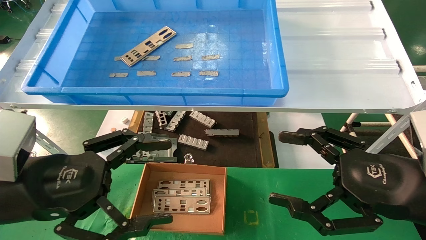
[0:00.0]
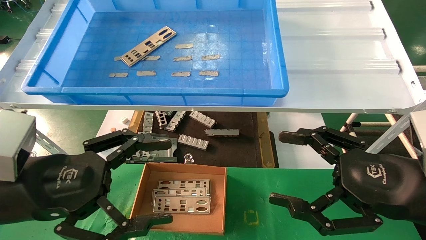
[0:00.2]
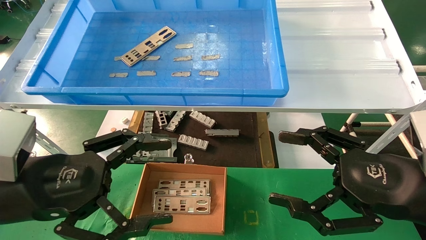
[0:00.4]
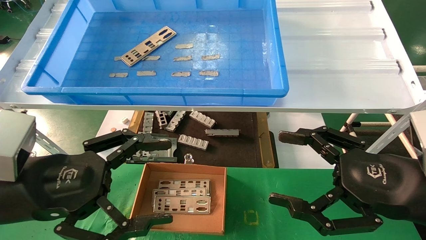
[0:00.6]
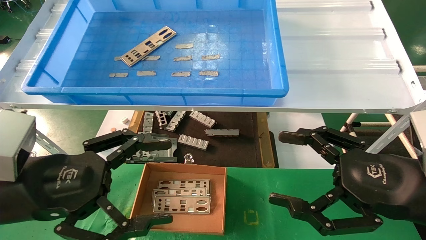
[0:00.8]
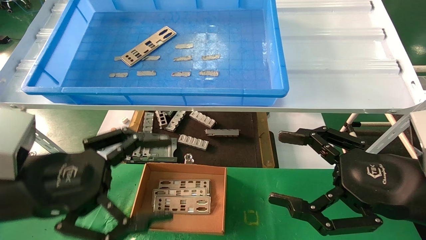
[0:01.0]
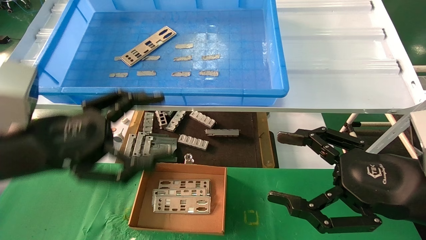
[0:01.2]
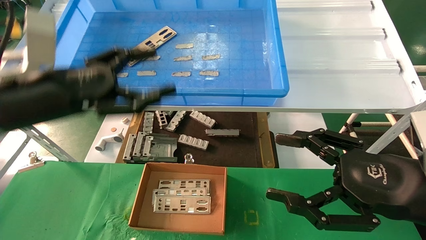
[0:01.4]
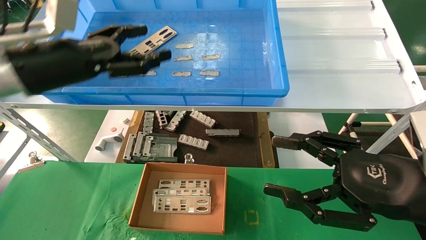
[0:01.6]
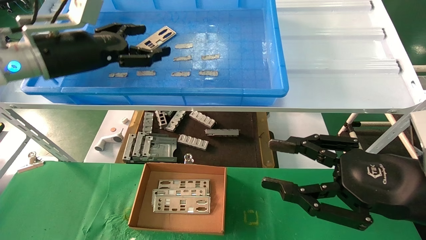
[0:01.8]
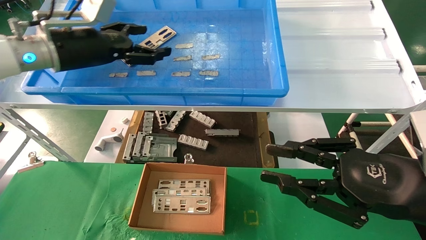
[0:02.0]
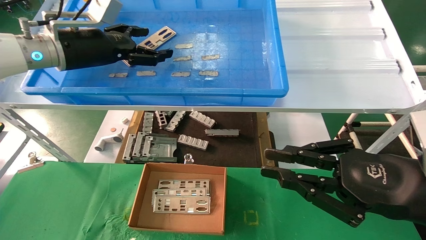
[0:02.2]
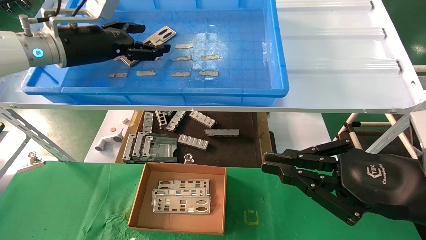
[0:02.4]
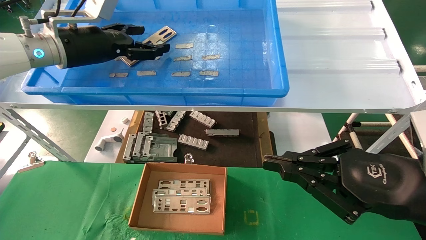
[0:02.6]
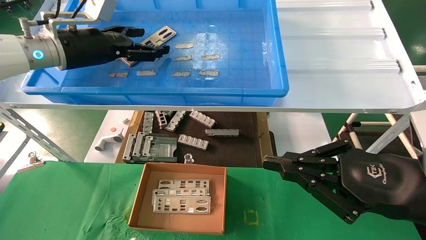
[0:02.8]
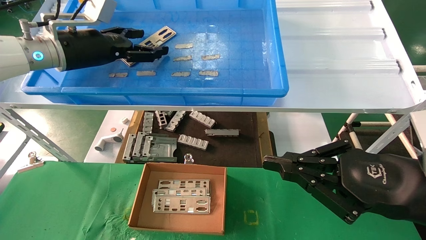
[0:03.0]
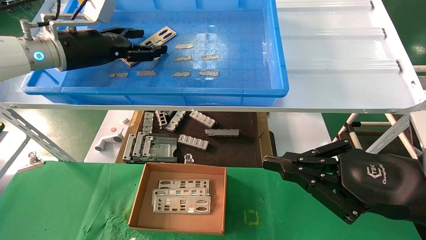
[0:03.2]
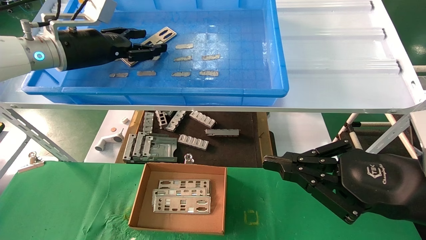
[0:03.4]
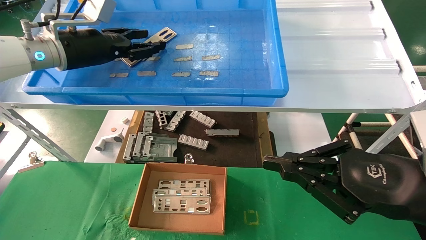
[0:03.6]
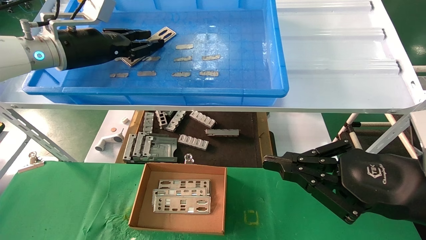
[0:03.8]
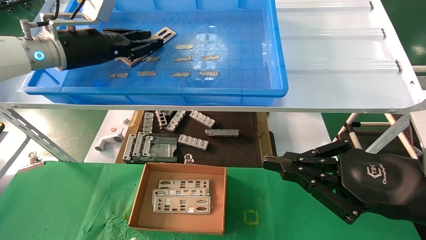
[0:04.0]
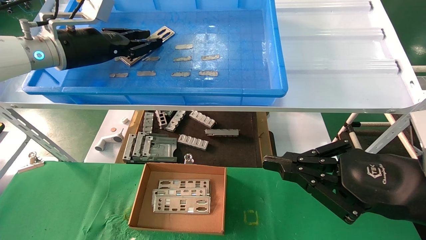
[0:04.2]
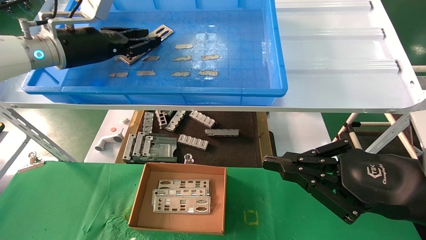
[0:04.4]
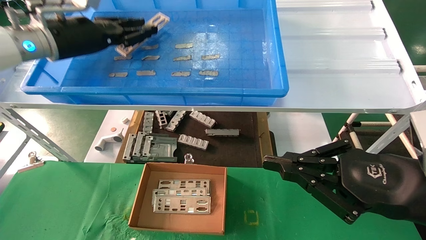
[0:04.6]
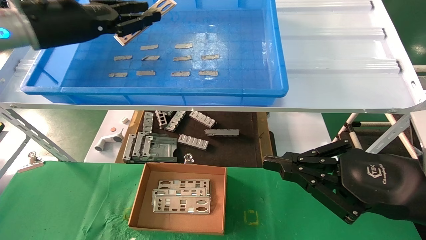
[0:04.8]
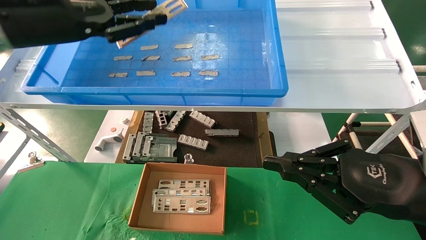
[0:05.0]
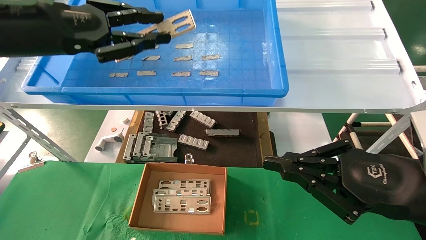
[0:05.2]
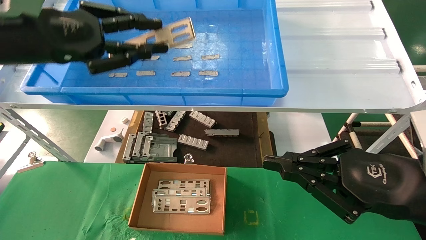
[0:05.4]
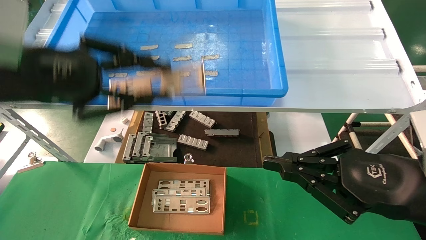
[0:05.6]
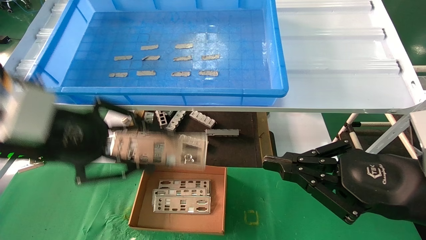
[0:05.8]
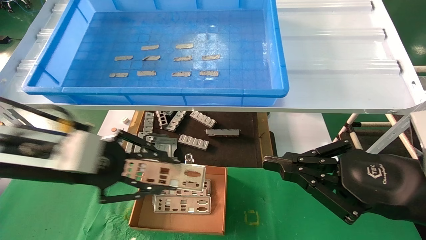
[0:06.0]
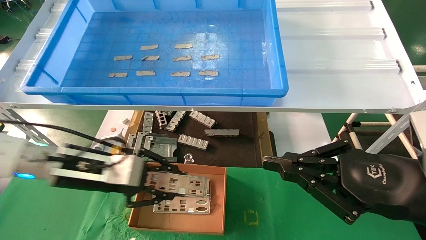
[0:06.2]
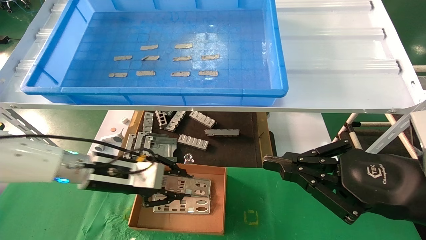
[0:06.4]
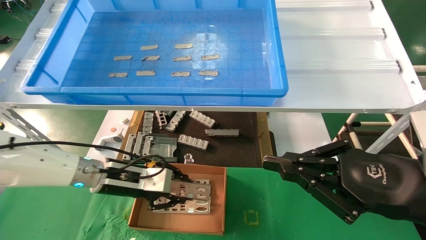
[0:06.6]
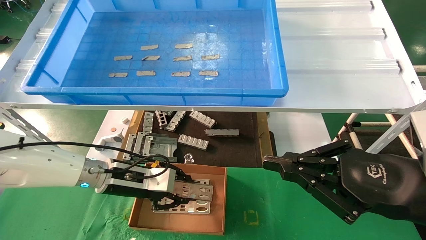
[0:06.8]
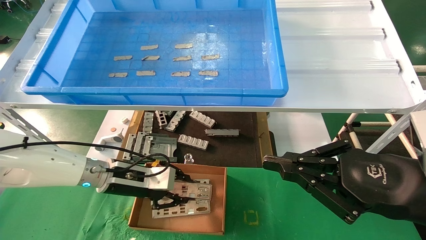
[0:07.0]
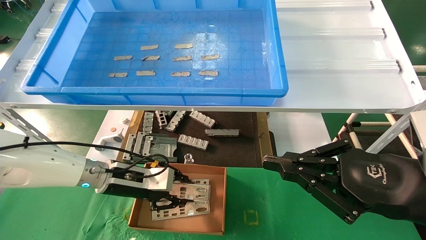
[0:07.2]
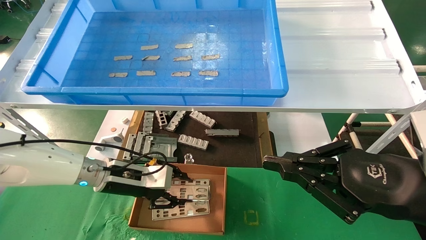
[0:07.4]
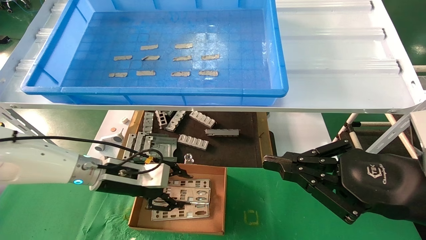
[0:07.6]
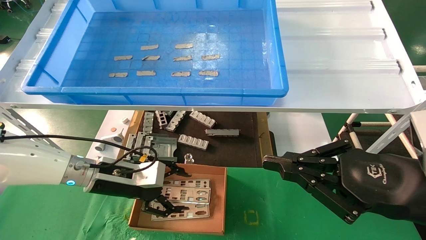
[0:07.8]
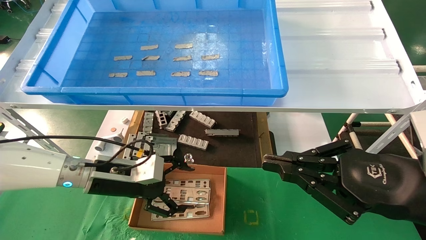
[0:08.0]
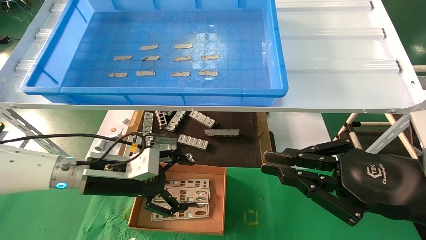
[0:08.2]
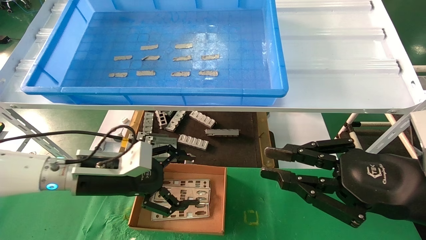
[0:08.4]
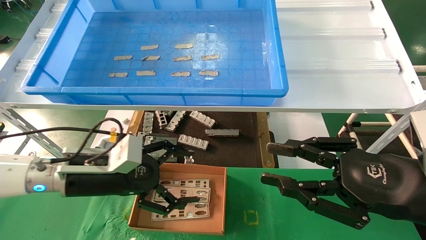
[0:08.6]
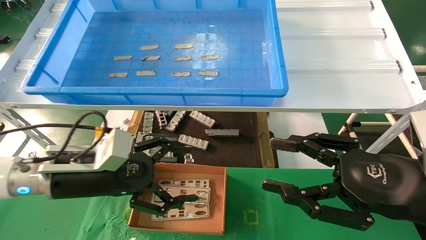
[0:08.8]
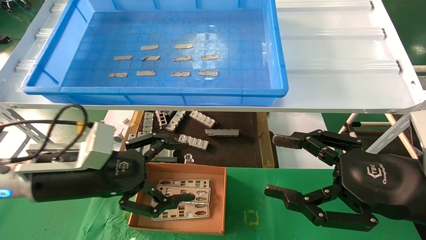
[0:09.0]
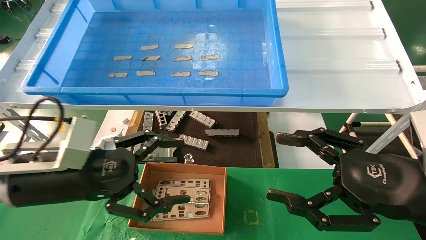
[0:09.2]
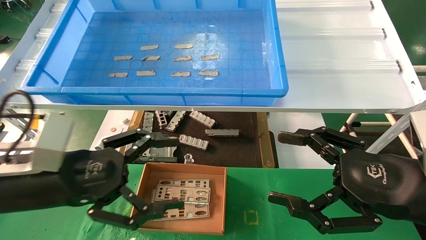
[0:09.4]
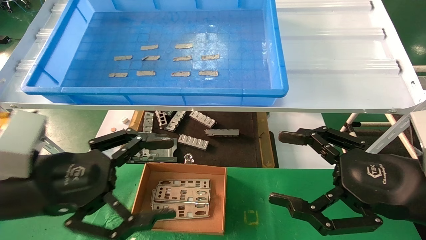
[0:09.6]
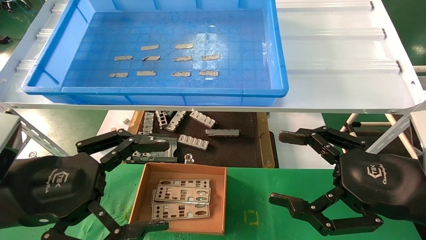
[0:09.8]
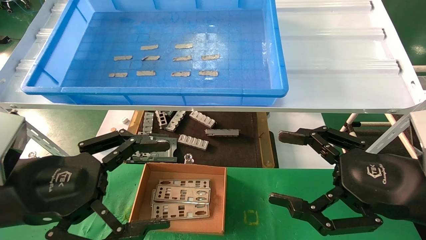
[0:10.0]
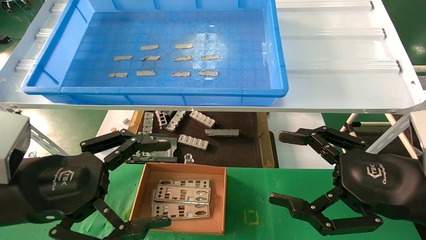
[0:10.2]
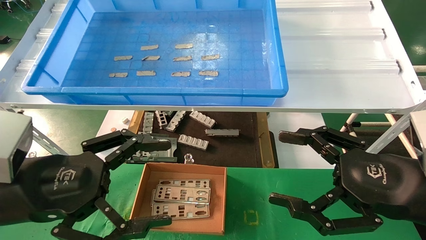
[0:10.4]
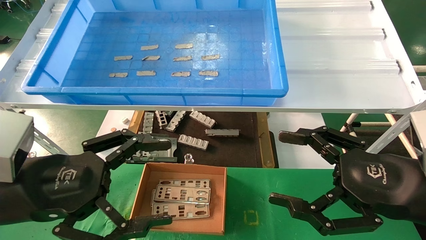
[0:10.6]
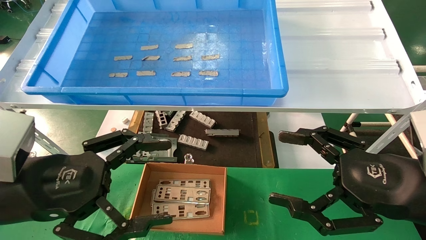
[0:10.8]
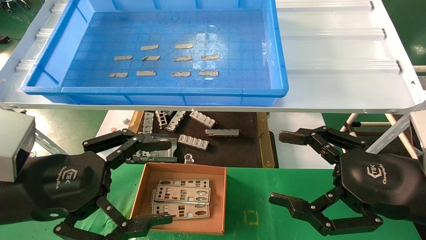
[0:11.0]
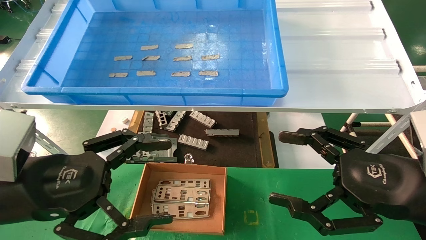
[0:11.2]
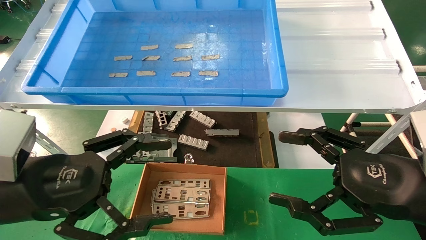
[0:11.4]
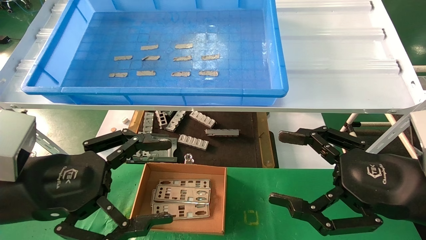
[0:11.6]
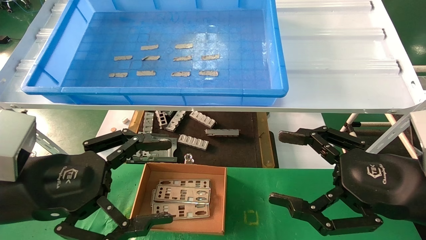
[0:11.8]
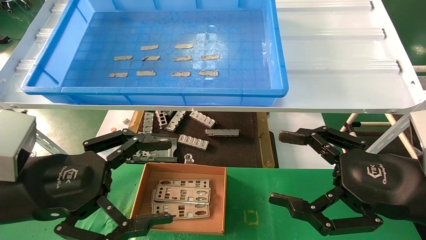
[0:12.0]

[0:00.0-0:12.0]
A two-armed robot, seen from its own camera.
Task of the whole recording: pick up the parts on the tray and put them in the cardboard box.
Step, 0:01.4 to 0:04.0: Pick up the IO bracket from the container box.
Step, 0:04.2 to 0:07.4: Place the IO bracket into the ingredient slot.
0:00.0 to 0:01.6: The left gripper travels forward and upward by roughly 20 cm.
0:01.6 to 0:03.0: The left gripper is displaced forward by roughly 10 cm. Meanwhile the right gripper closes.
0:03.0 to 0:04.4: The left gripper closes up.
0:04.4 to 0:06.0: The left gripper goes some 20 cm backward and downward.
0:06.0 to 0:07.6: The left gripper travels downward and forward by approximately 15 cm.
0:07.6 to 0:09.0: The left gripper shifts some 15 cm backward and upward, and opens up. Meanwhile the right gripper opens its fingers.
0:09.0 to 0:10.4: The right gripper opens up, while the left gripper is displaced backward by about 10 cm.
0:10.4 to 0:12.0: Both grippers stay about where they are.

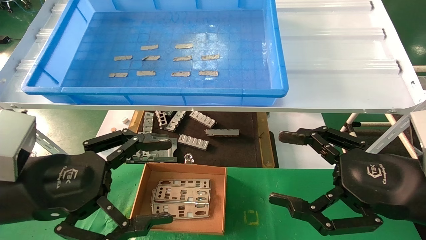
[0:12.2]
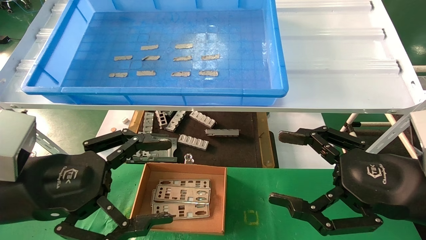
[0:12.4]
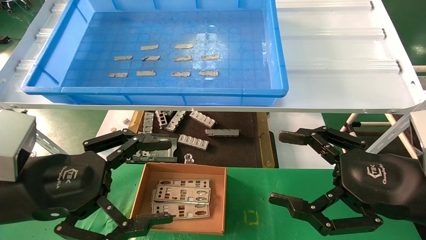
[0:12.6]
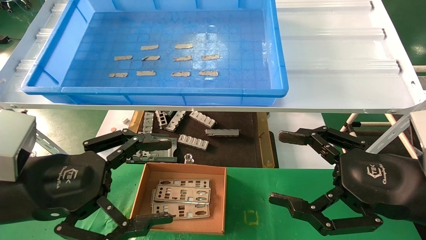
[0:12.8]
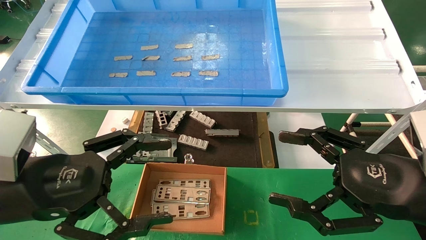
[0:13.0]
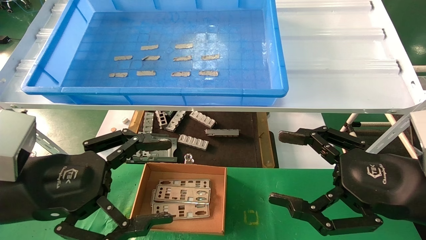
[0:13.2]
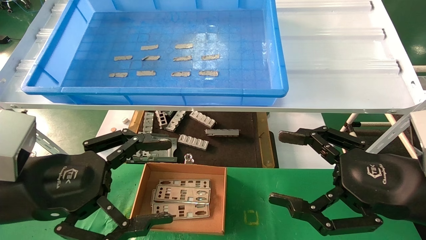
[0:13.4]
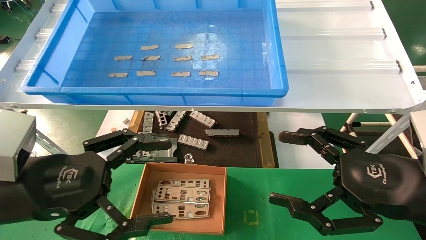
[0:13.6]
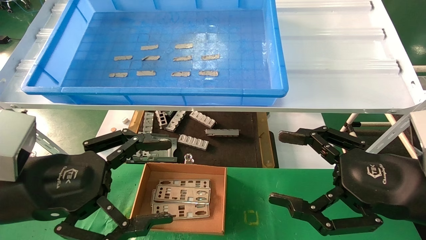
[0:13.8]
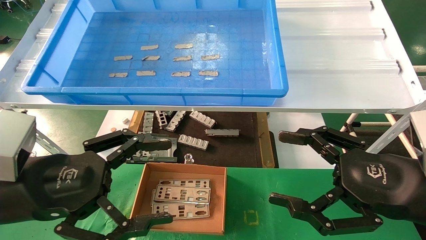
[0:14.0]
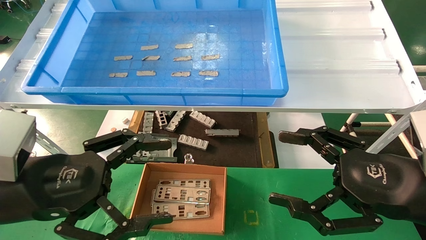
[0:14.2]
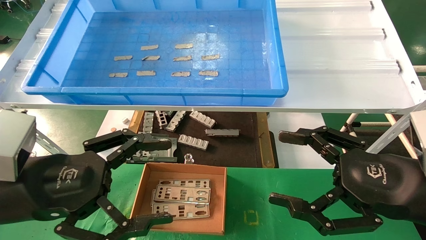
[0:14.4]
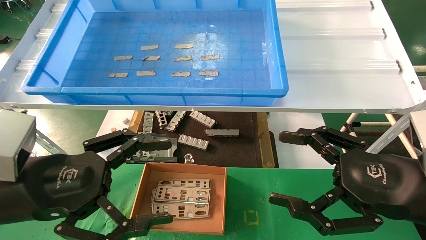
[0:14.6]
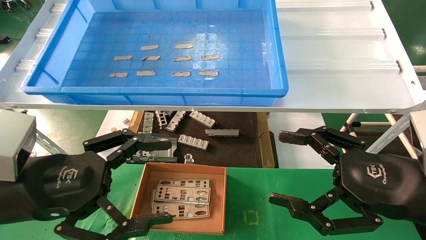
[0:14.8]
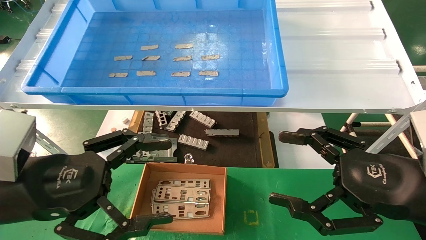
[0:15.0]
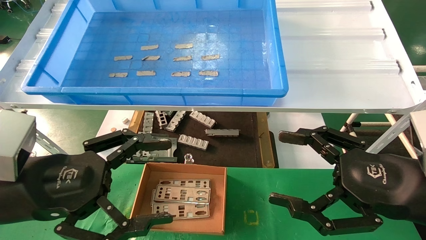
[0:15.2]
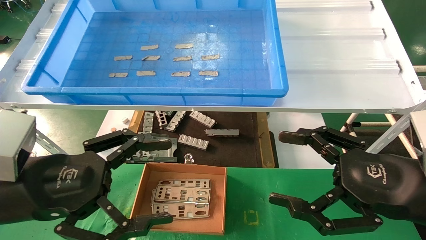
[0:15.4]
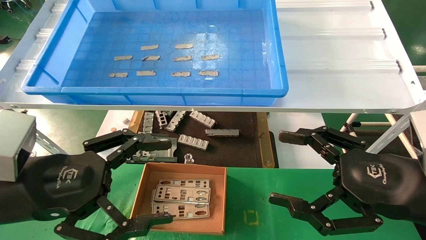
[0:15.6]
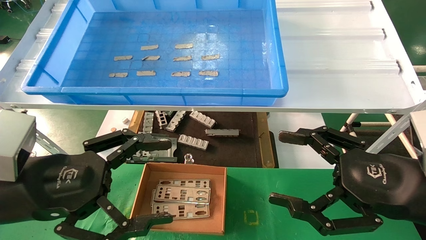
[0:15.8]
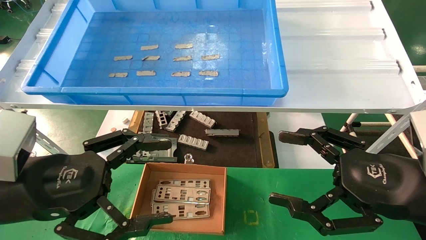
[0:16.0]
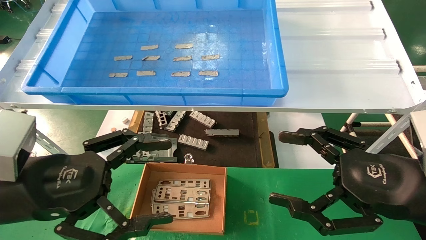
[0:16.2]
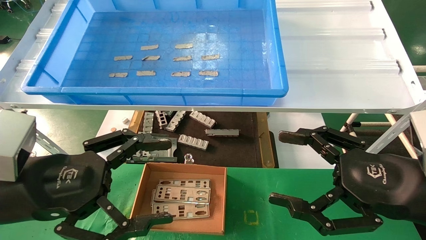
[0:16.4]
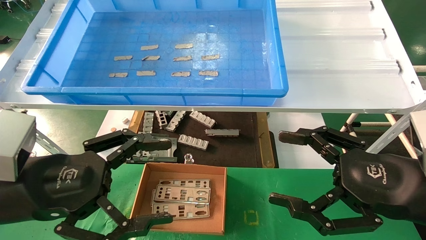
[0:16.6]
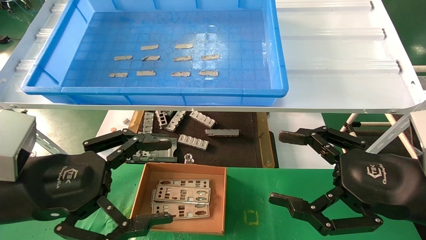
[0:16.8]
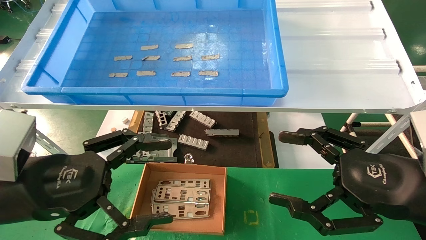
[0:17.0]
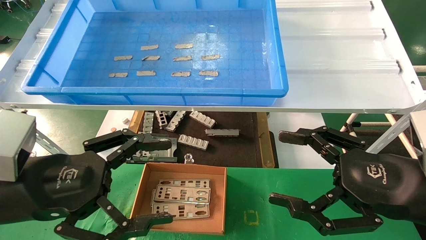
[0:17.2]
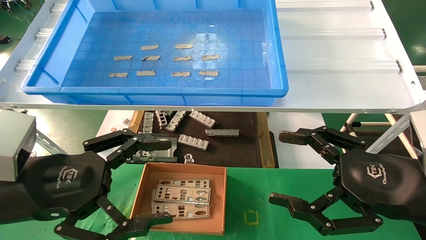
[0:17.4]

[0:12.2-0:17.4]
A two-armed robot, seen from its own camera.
Task of the whole recording: pick up the parts on the tray and put them in the cardboard box.
0:12.2 to 0:17.4: Both grippers stay put.
